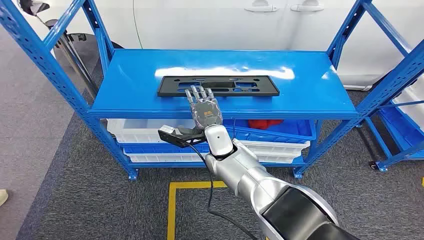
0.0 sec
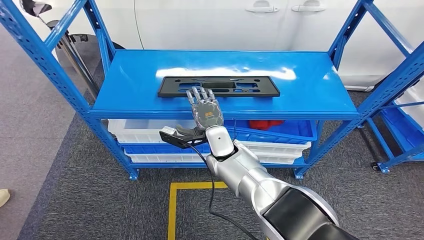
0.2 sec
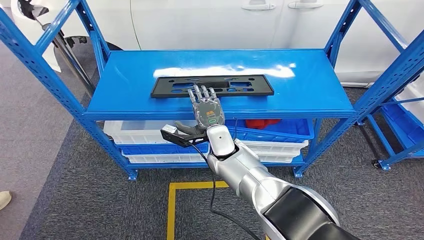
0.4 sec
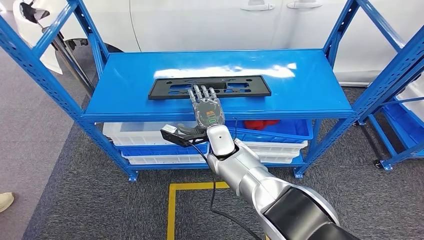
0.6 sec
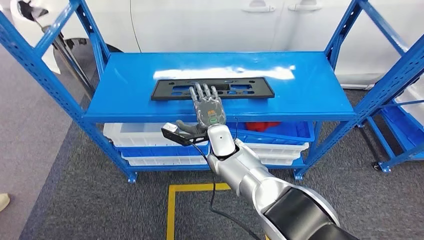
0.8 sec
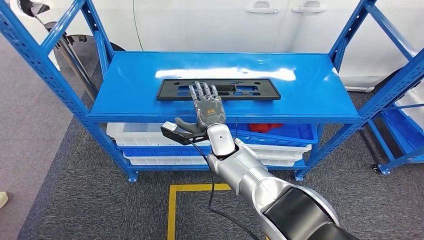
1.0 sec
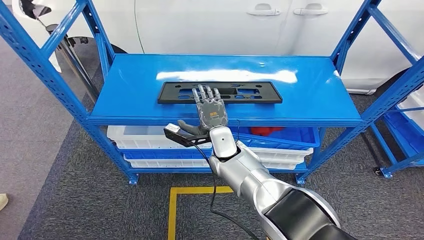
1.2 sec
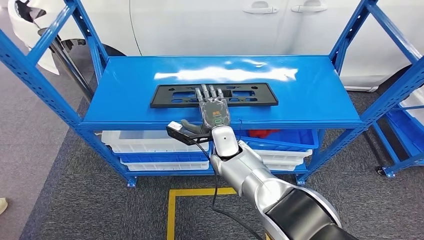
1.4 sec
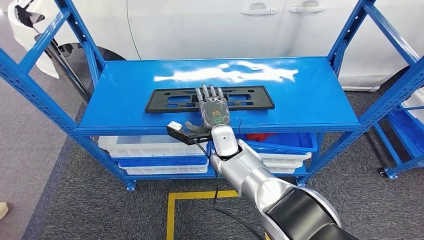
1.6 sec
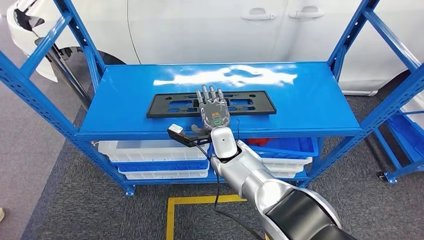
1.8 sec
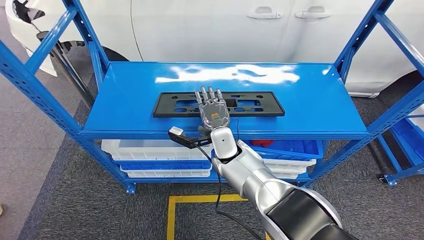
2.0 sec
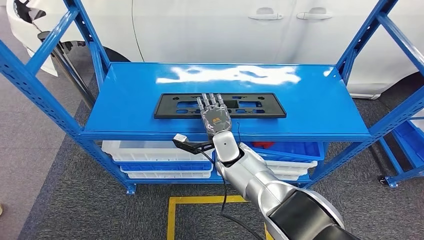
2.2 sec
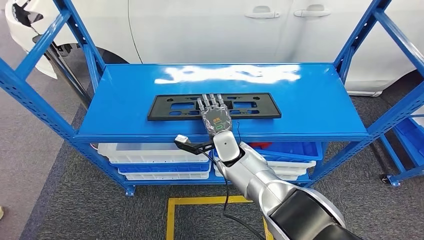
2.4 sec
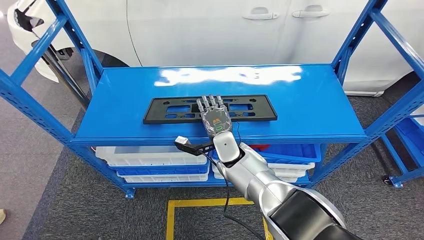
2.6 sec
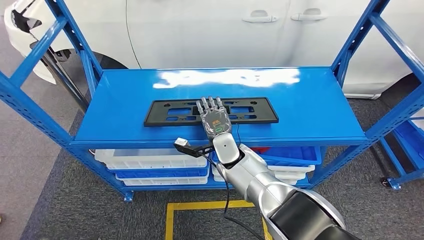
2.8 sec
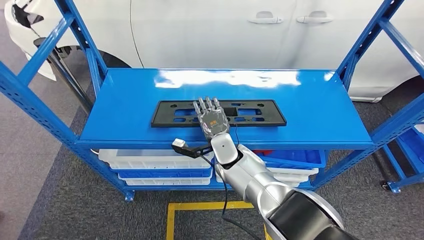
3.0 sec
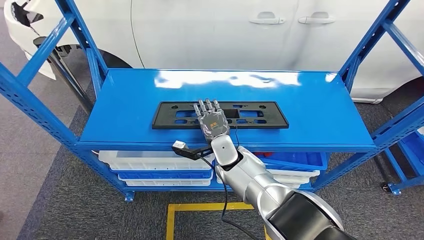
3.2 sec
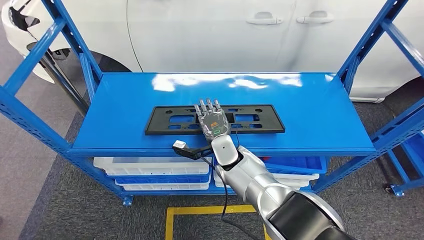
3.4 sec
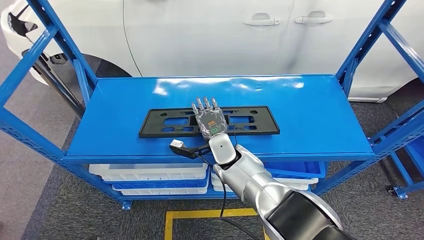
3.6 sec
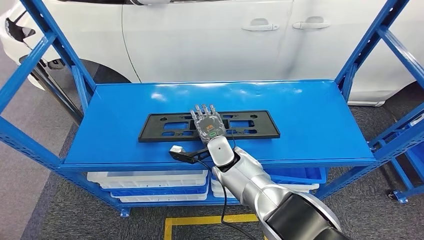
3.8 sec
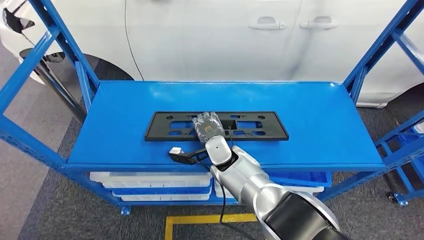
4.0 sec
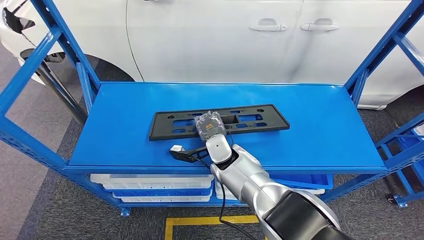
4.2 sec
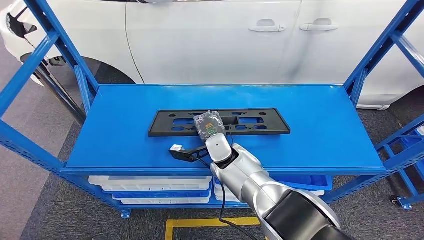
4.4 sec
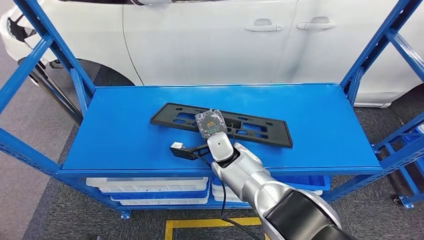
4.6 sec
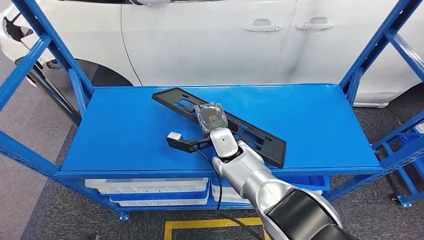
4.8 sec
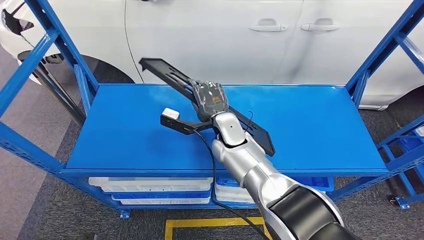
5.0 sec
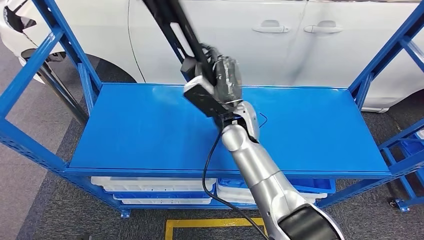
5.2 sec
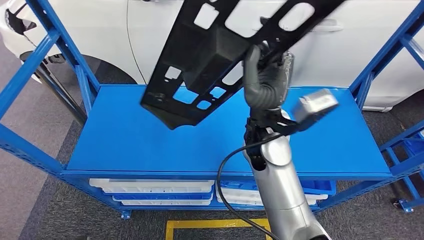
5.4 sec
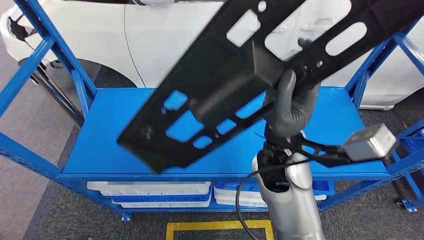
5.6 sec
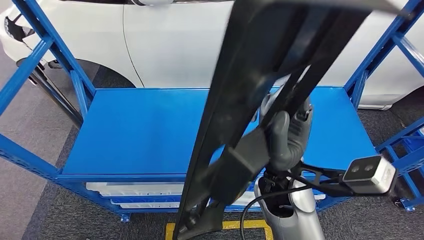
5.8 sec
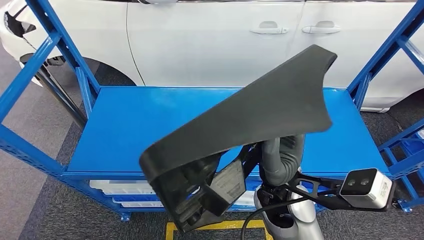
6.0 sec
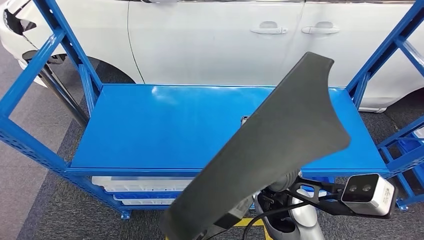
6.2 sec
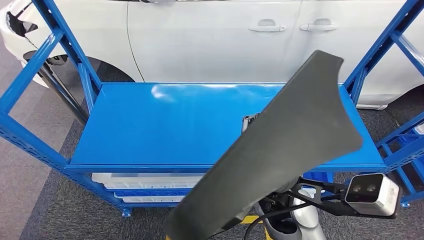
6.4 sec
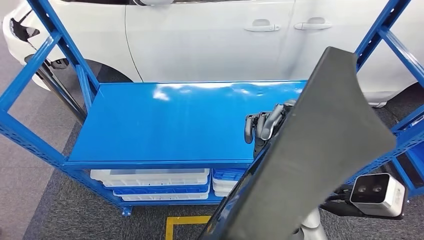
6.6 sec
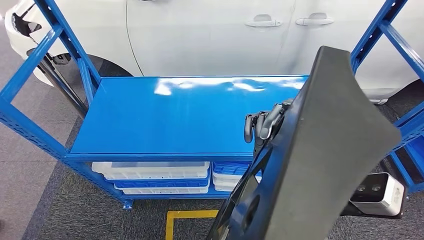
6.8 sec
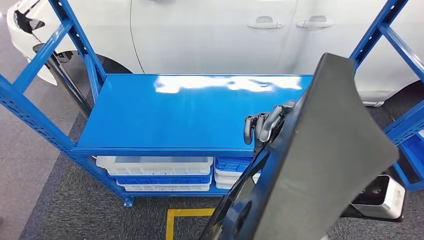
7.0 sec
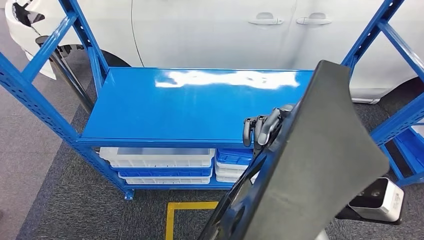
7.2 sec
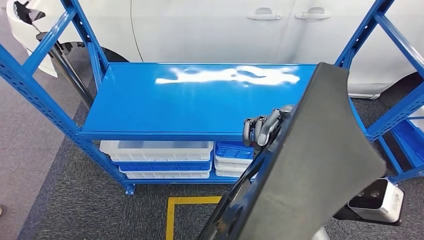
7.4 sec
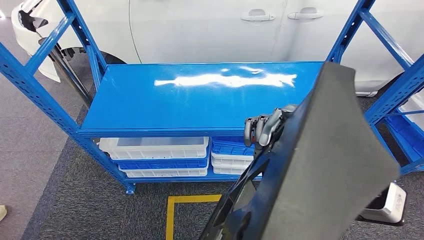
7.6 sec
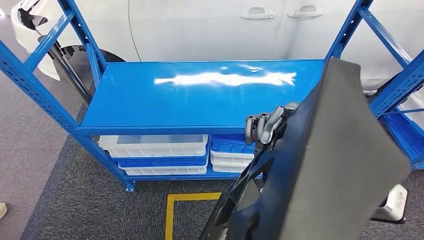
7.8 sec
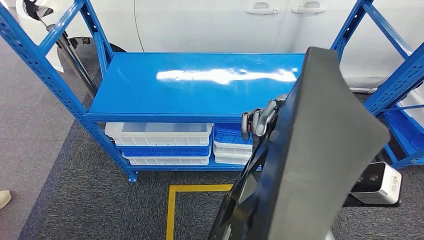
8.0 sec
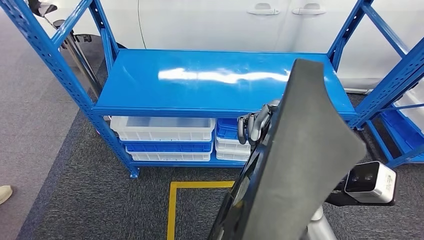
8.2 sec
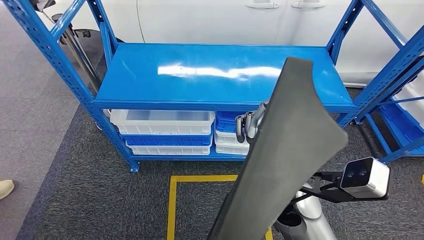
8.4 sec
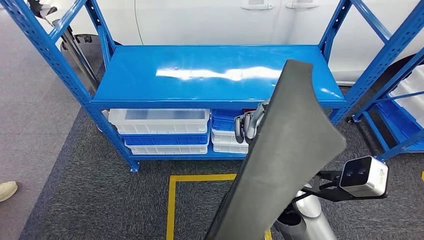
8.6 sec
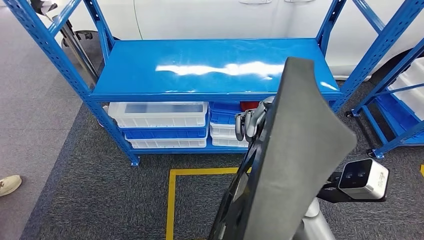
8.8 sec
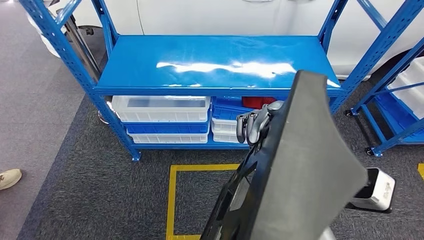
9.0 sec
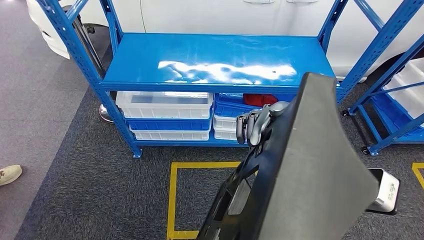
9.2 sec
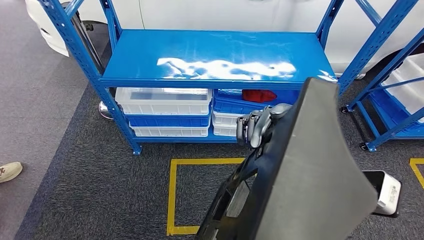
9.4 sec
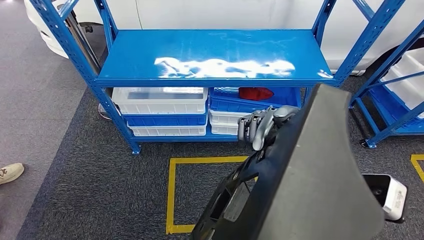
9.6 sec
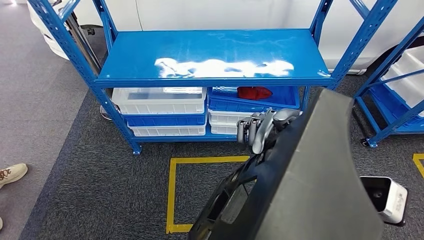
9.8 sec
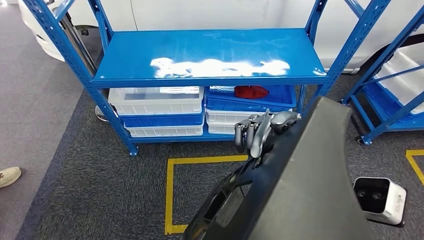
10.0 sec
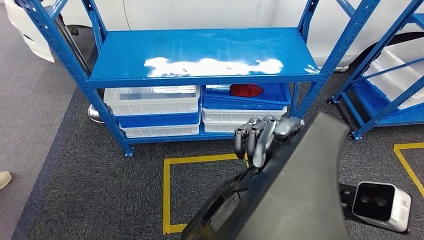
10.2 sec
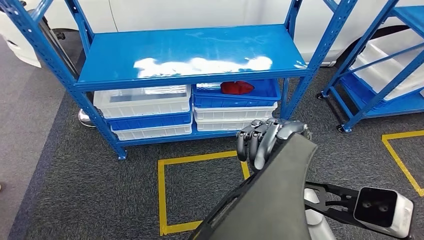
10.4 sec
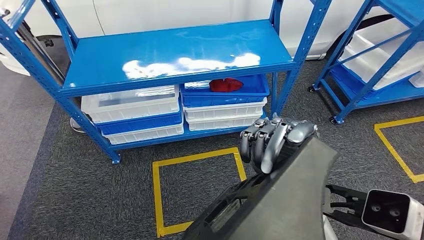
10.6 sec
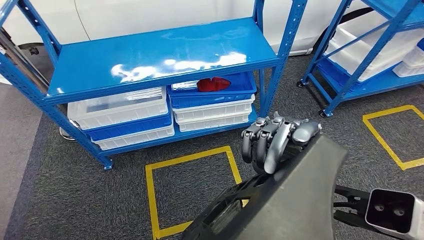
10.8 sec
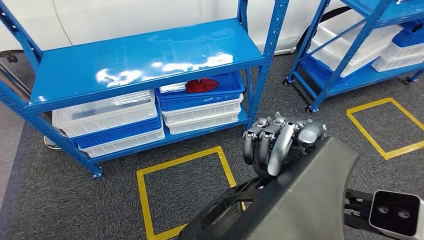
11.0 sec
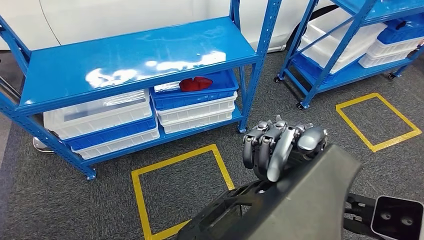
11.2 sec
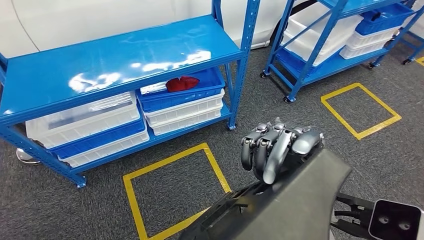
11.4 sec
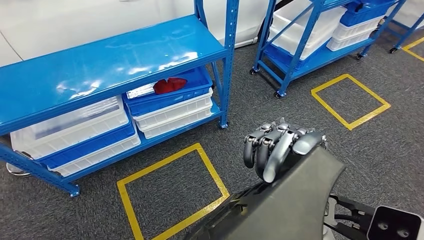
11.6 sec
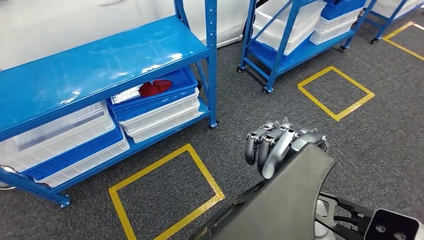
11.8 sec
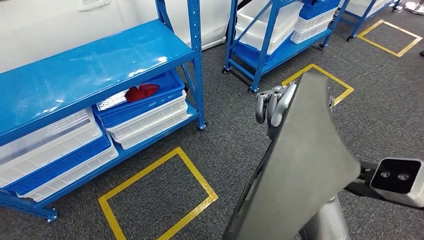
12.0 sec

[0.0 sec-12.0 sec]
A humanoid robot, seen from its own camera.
Step, 0.0 sec to 5.2 sec: Pick up the large material from the shelf.

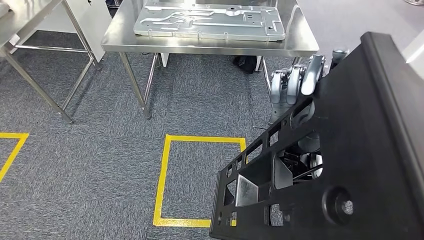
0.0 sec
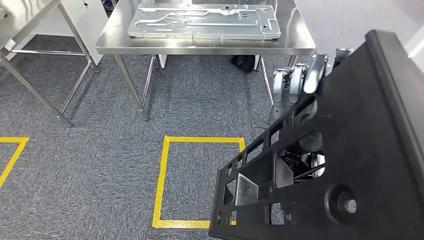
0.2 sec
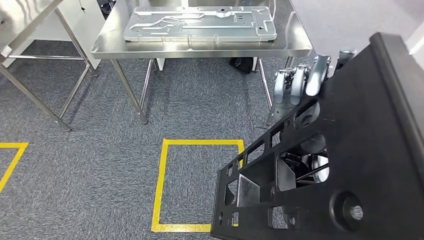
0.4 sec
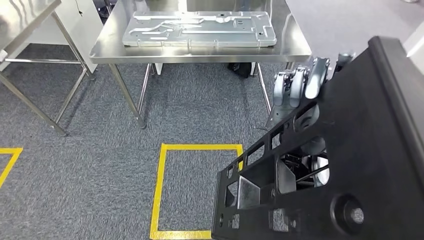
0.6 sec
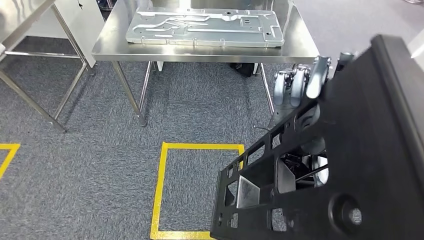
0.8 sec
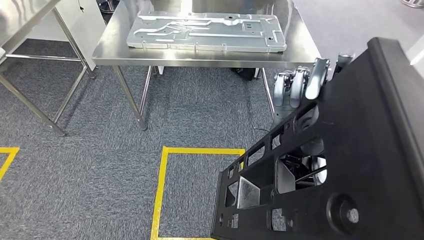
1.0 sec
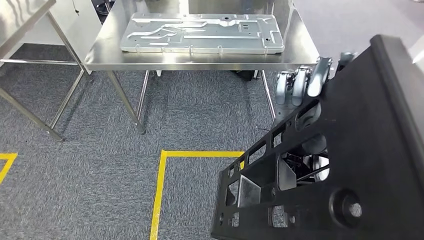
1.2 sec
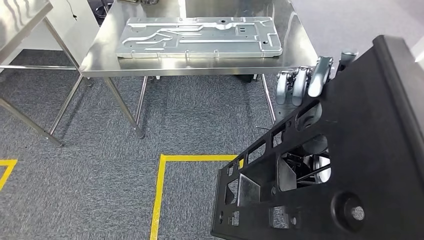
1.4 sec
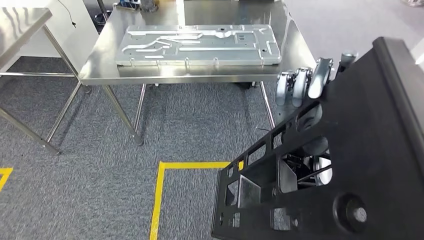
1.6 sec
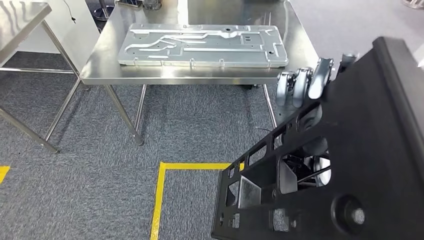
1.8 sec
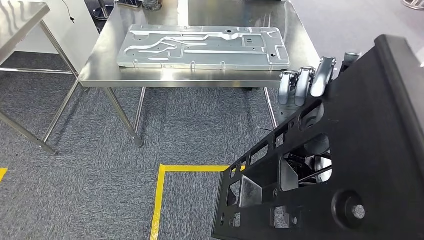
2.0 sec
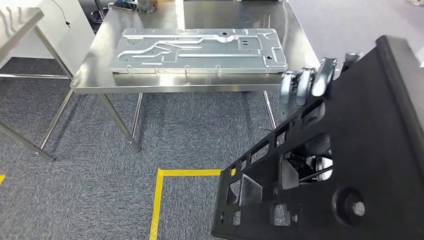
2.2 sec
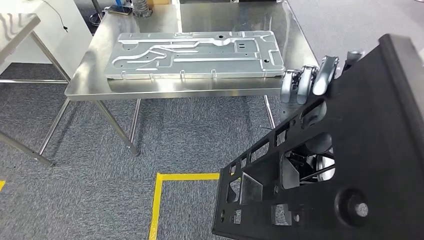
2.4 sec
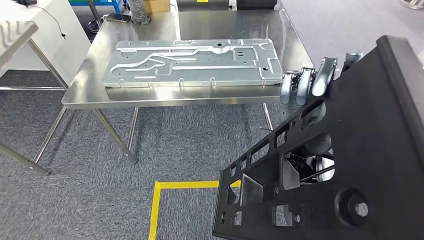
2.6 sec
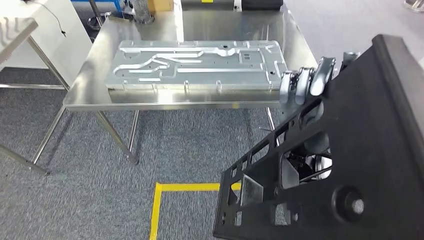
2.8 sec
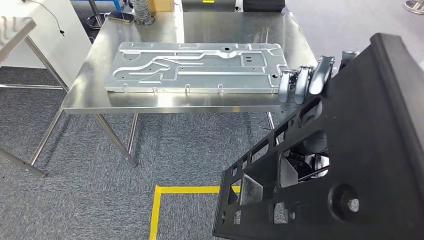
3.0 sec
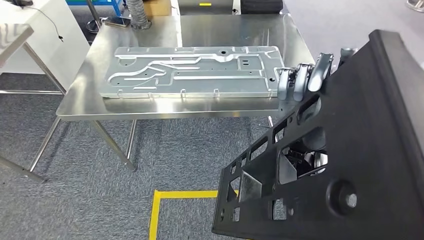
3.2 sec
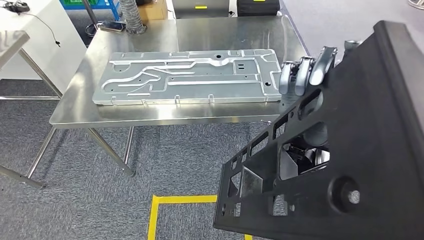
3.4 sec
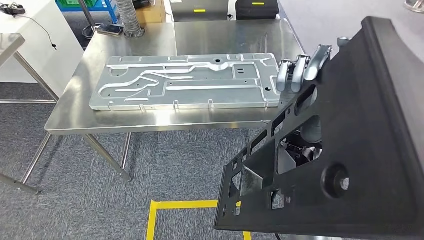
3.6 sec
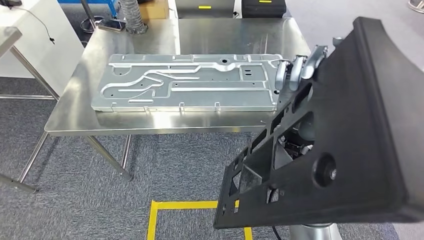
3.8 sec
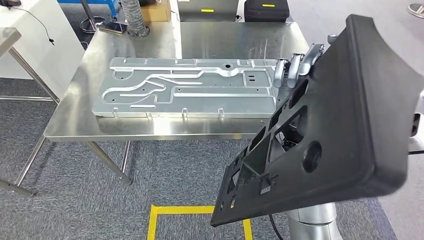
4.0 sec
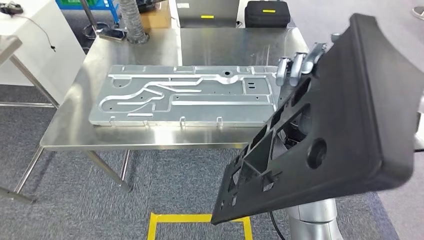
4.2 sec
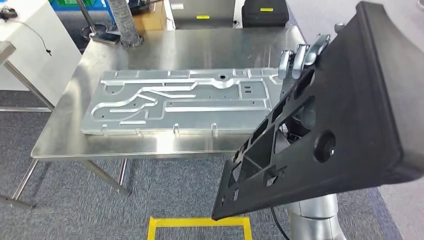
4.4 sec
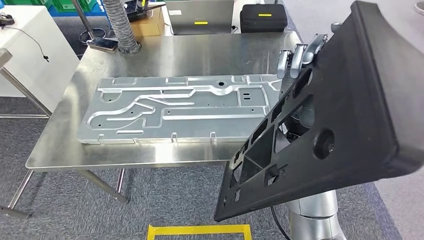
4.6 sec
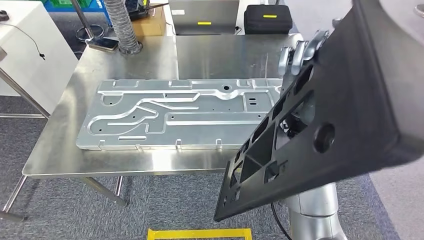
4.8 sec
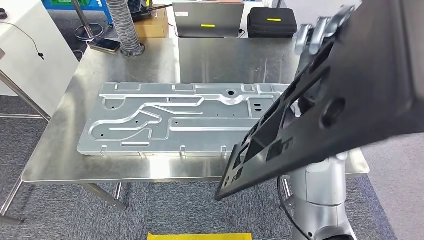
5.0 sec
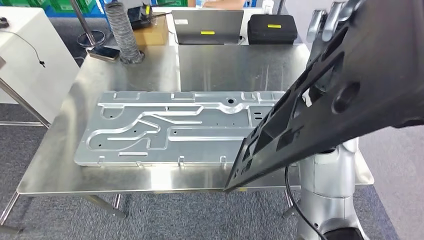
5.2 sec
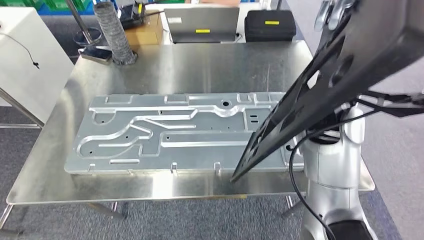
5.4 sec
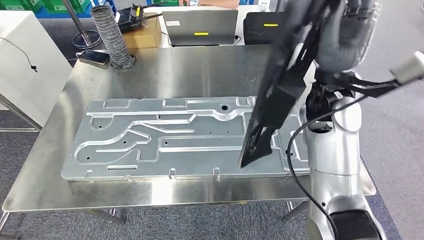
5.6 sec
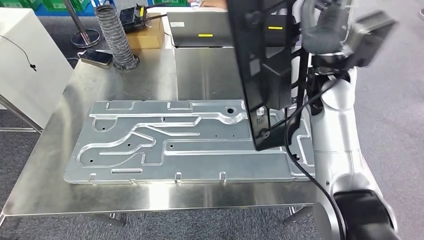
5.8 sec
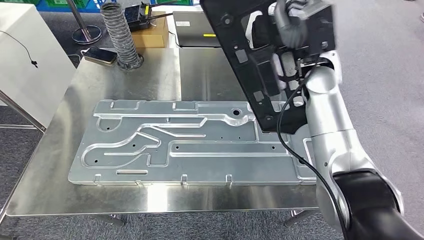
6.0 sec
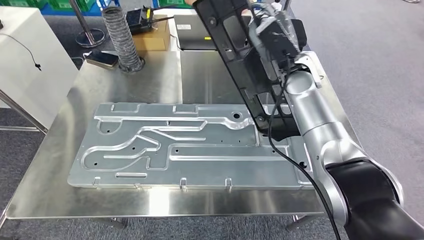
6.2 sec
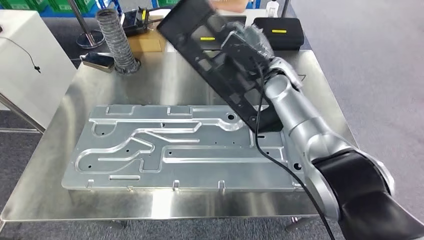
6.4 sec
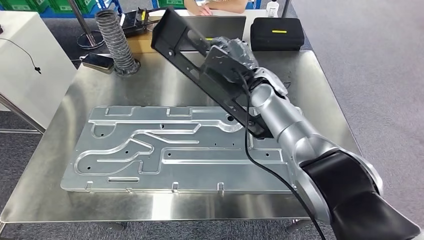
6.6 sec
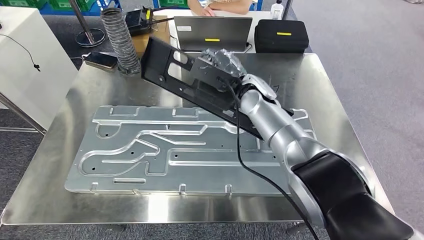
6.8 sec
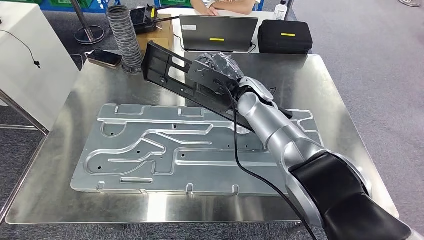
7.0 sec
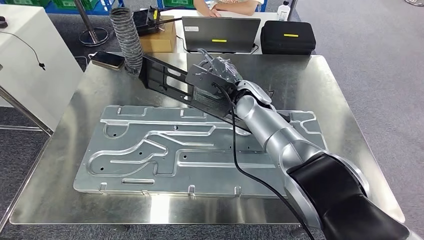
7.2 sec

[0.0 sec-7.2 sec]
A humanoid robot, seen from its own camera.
Step, 0.0 sec to 5.4 sec: Move the large material to the workbench.
